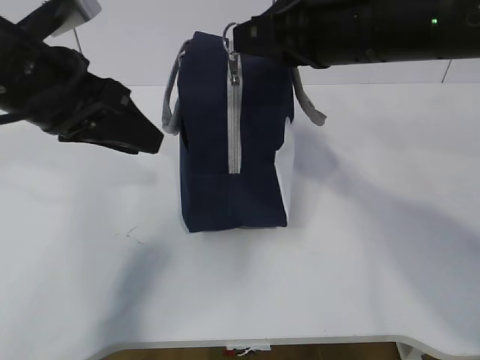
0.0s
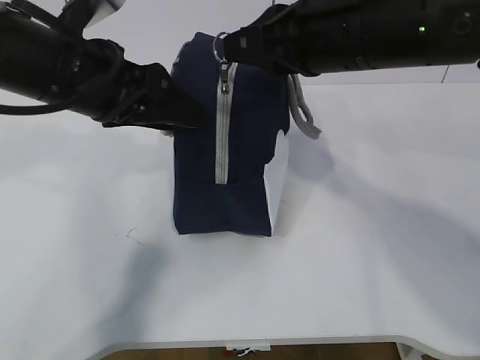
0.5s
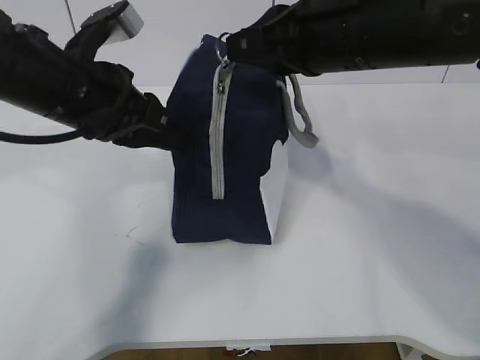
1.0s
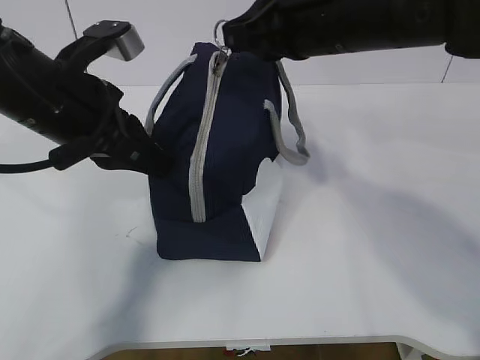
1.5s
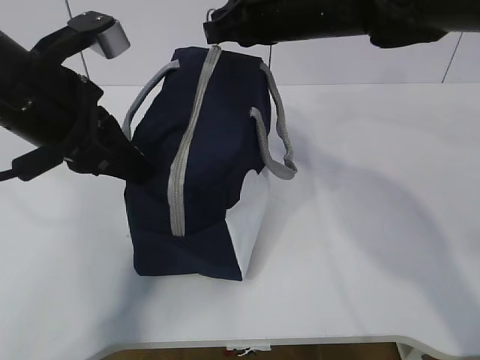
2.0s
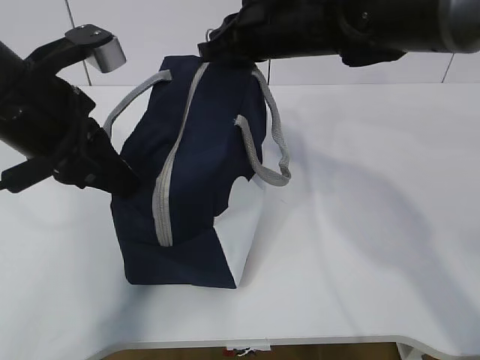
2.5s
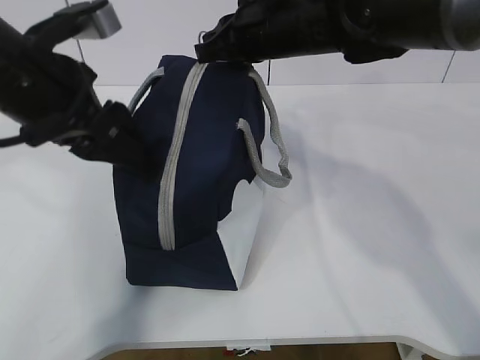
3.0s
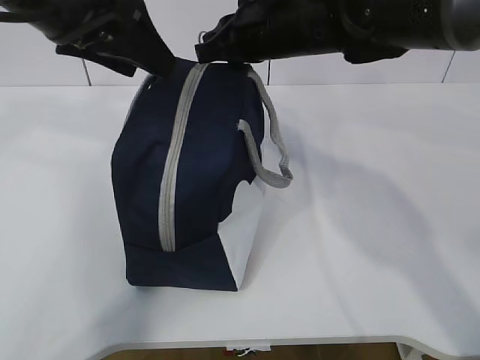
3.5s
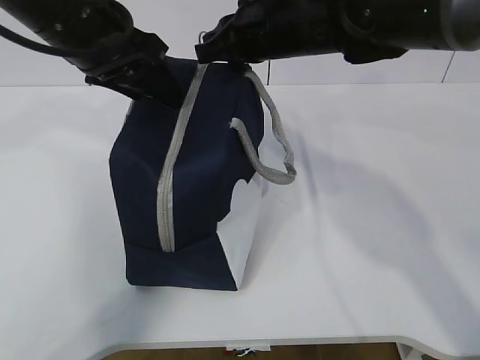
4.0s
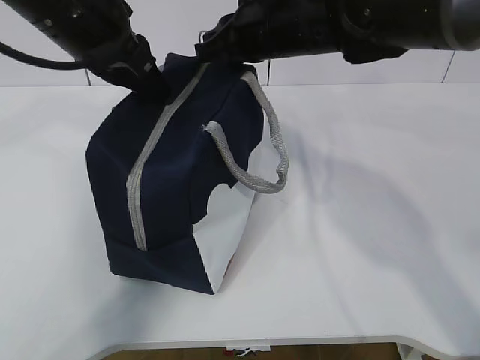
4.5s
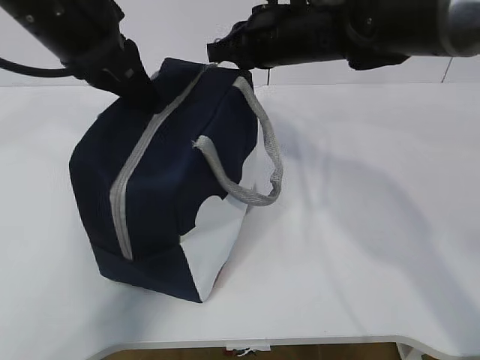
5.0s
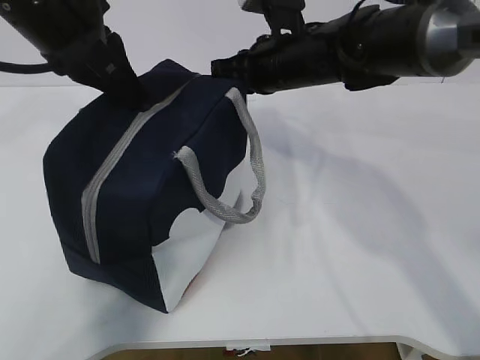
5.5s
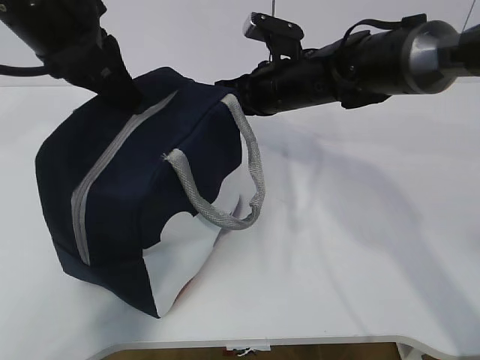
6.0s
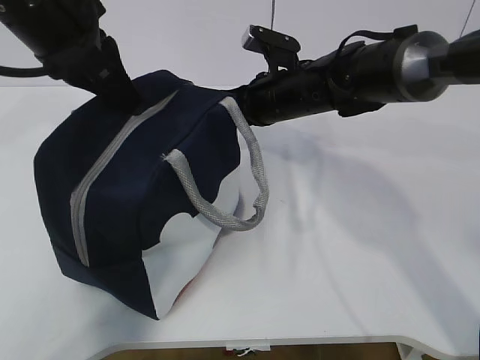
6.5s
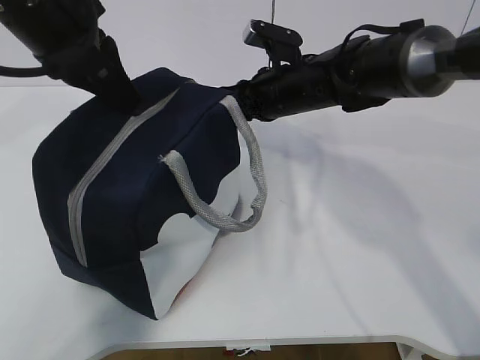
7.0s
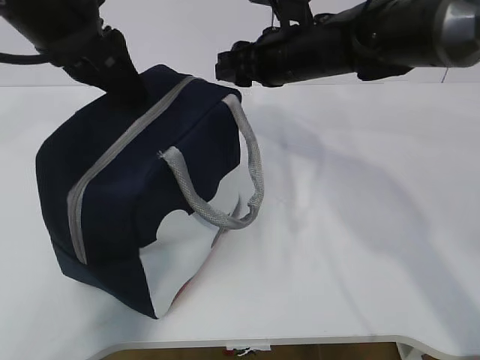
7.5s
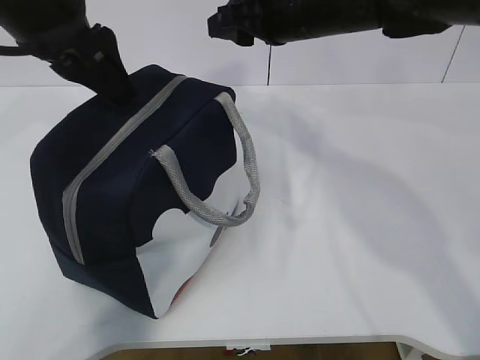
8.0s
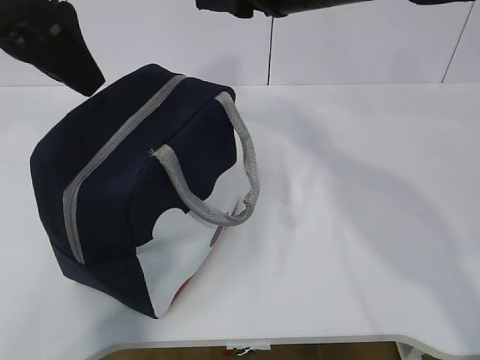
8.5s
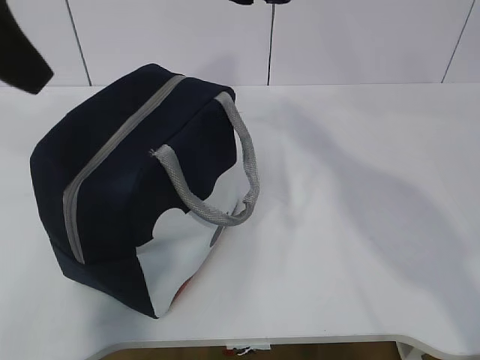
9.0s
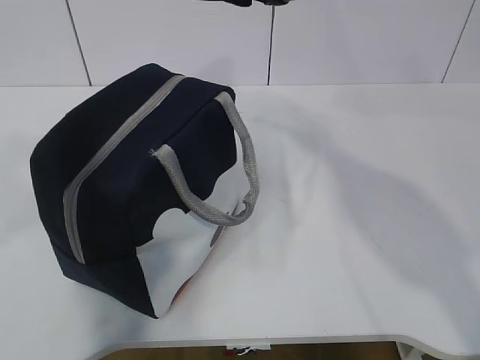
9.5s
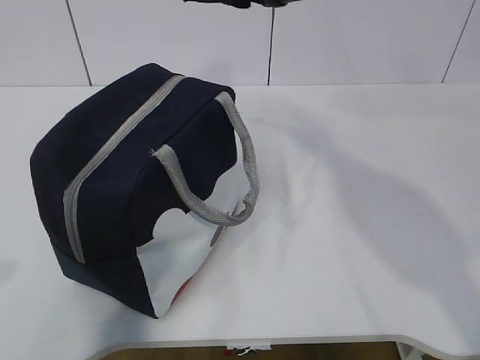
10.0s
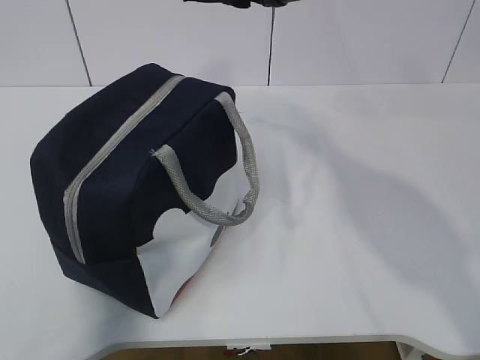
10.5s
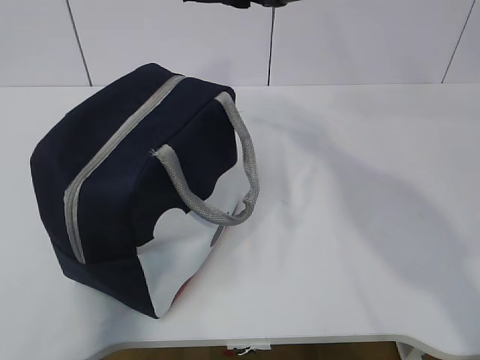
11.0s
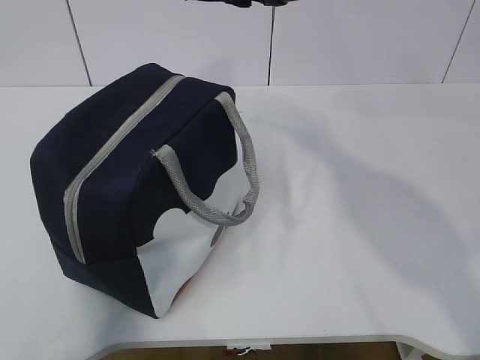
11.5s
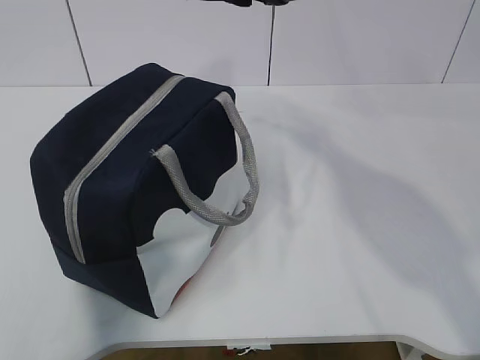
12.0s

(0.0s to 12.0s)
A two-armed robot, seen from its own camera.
0.0s - 2.0s: The right gripper is displaced forward by about 10 cm; the left gripper closes.
2.0s - 4.0s: The left gripper goes roughly 5 cm forward, and opens up.
4.0s - 6.0s: The left gripper closes its fingers; the right gripper is displaced downward by roughly 10 cm.
6.0s - 8.0s: The right gripper goes roughly 10 cm upward, and opens up. The left gripper opens up.
8.0s - 10.0s: The right gripper shifts about 5 cm upward; the left gripper heads backward and to the left, covering about 25 cm.
10.0s - 12.0s: The left gripper moves backward, roughly 5 cm.

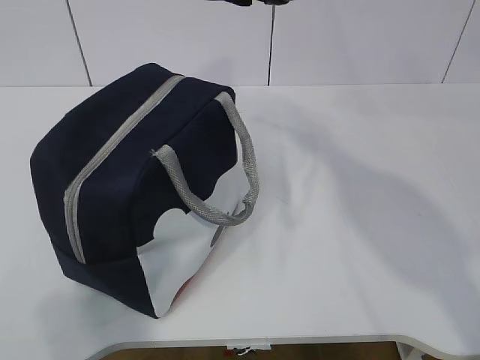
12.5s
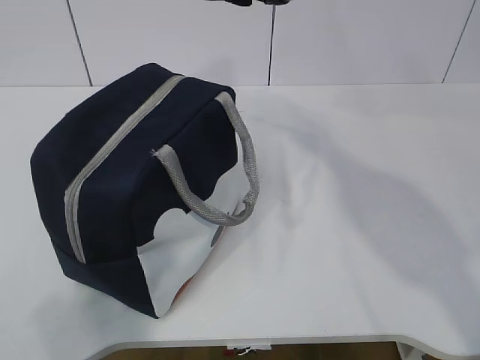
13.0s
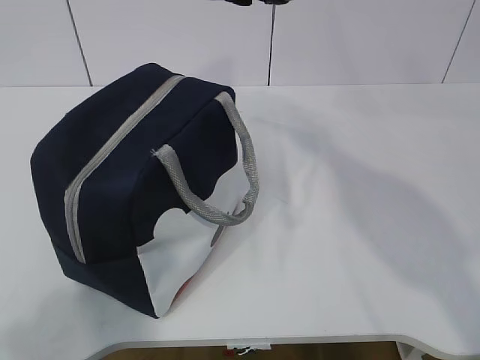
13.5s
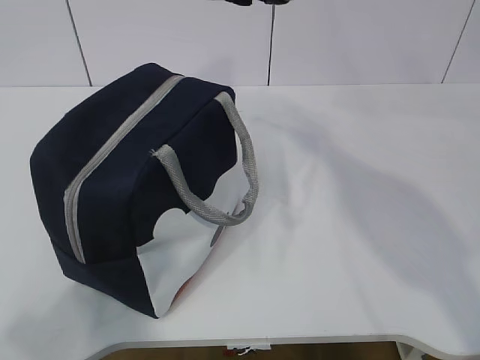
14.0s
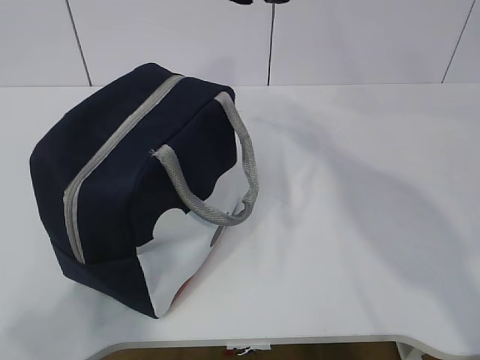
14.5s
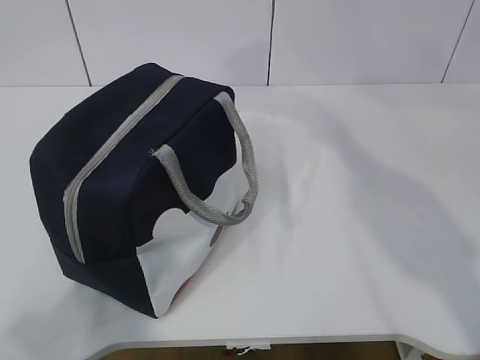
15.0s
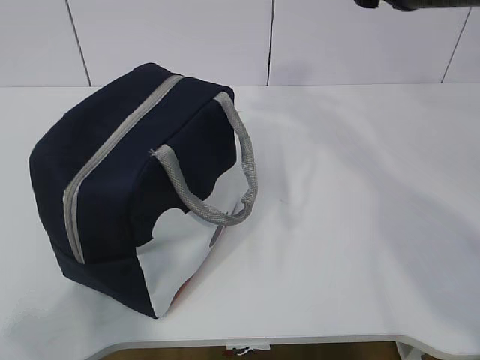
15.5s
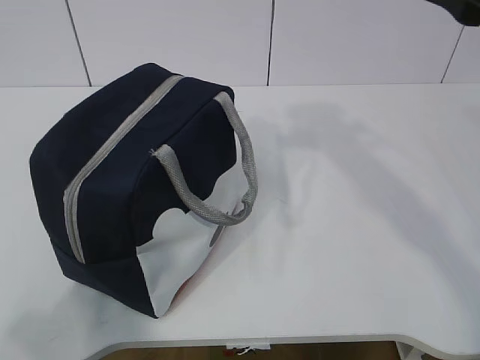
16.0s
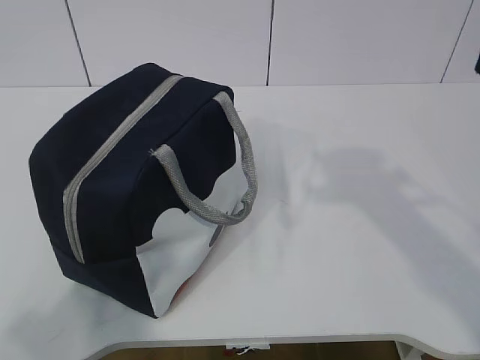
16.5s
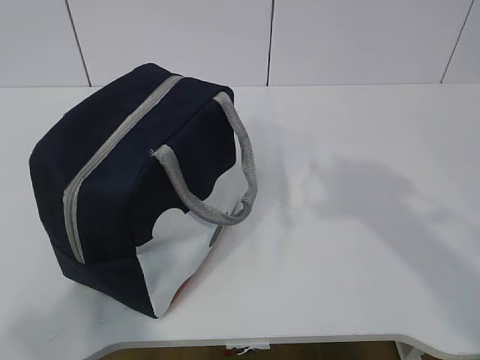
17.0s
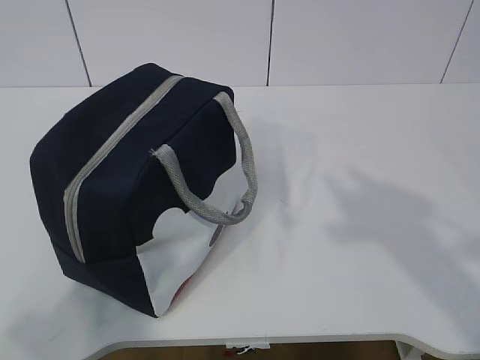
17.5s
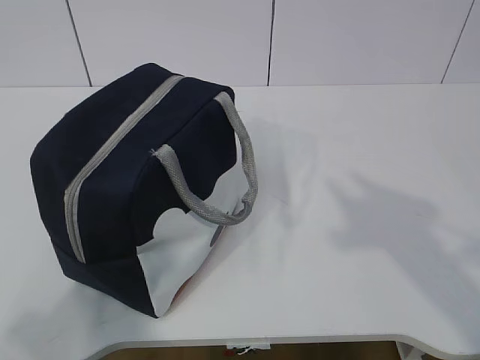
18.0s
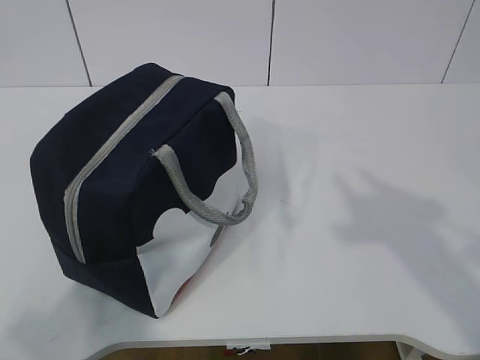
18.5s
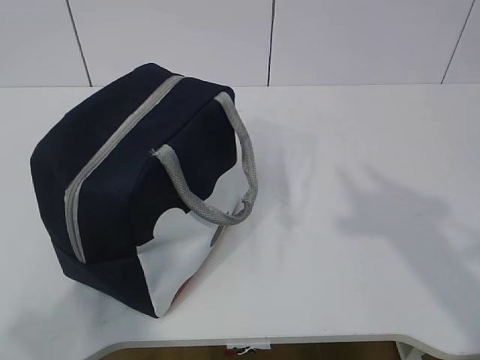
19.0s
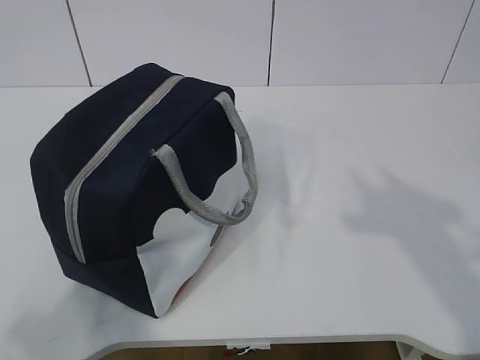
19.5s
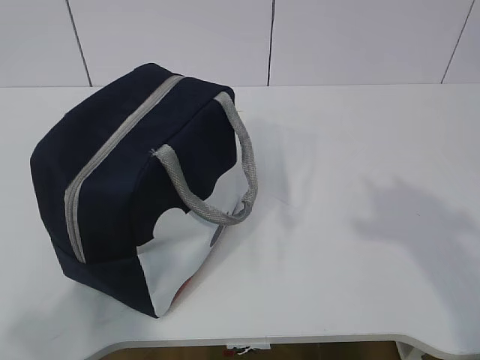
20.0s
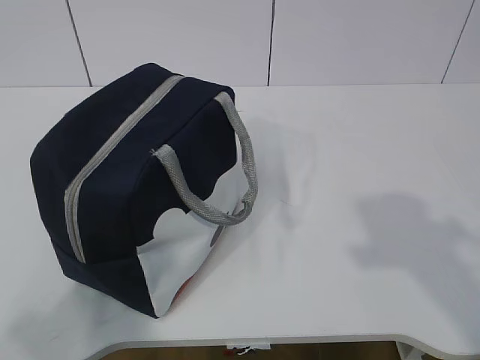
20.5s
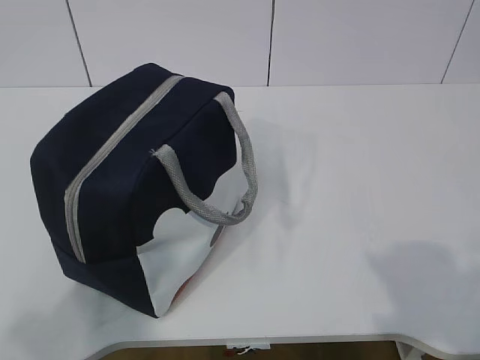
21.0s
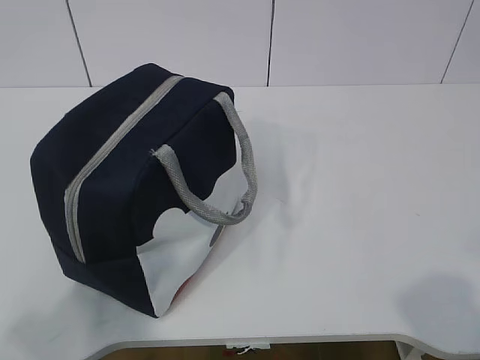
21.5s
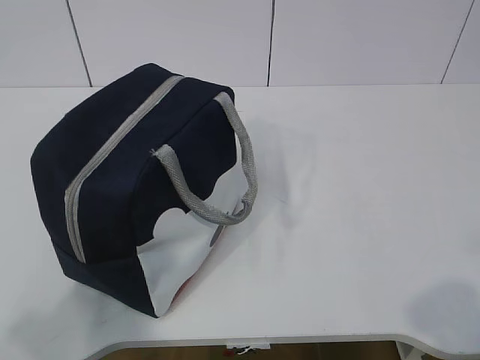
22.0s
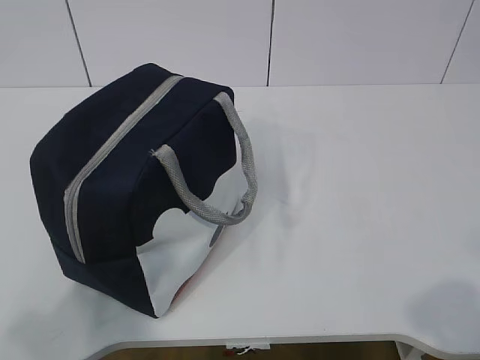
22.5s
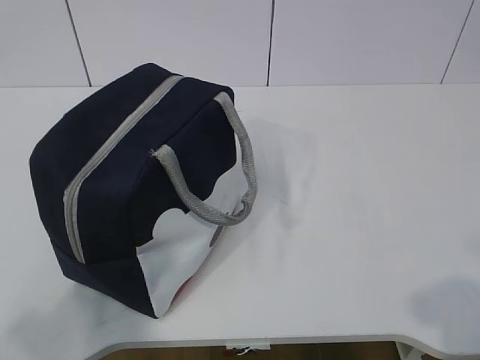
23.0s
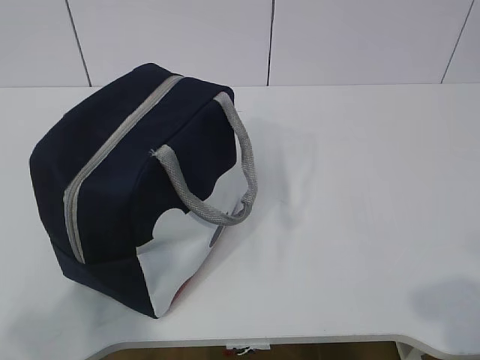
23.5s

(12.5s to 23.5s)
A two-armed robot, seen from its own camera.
14.5s - 16.0s: The right gripper is displaced to the right and backward by approximately 20 cm.
16.0s - 18.0s: The right gripper is displaced backward by approximately 15 cm.
